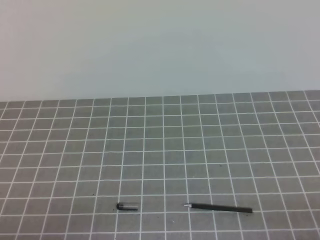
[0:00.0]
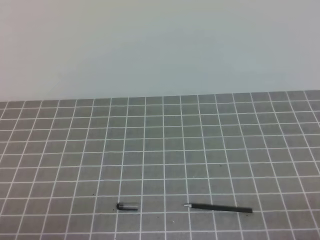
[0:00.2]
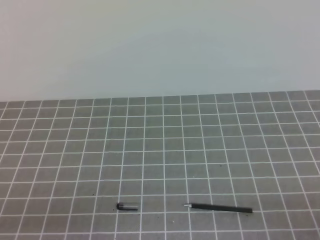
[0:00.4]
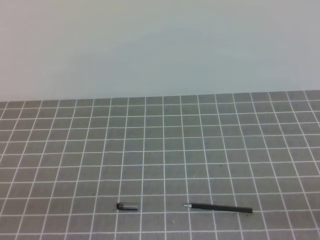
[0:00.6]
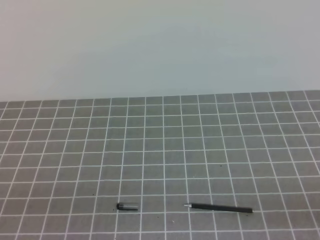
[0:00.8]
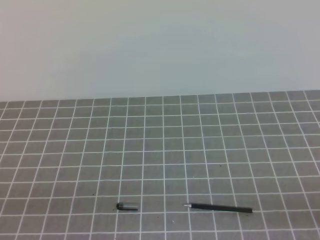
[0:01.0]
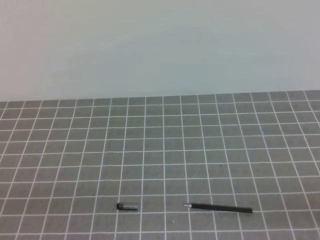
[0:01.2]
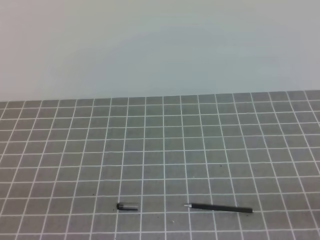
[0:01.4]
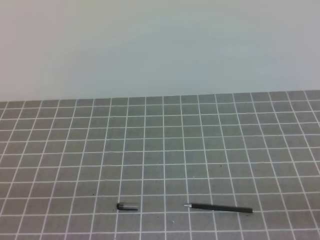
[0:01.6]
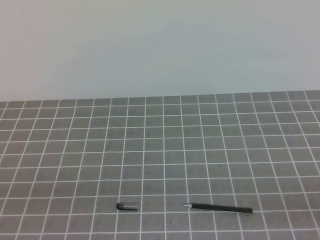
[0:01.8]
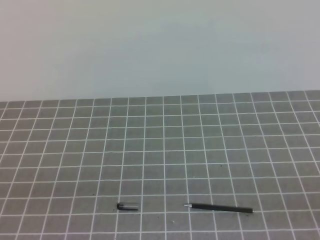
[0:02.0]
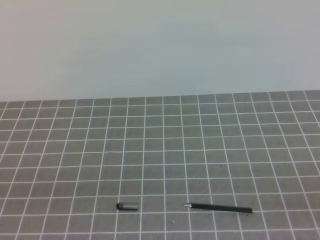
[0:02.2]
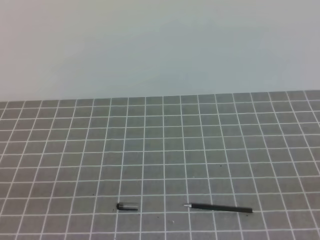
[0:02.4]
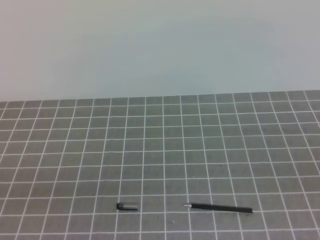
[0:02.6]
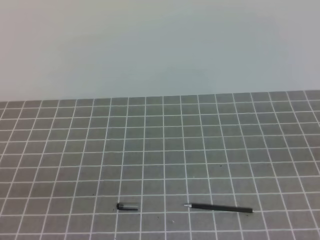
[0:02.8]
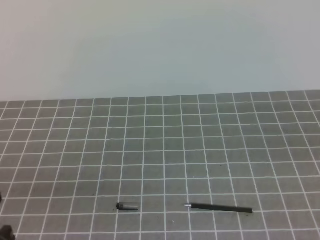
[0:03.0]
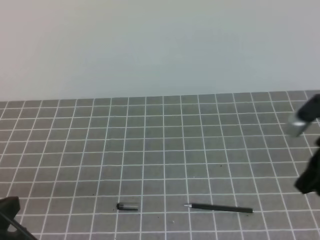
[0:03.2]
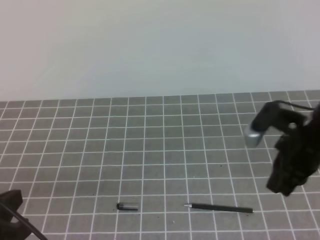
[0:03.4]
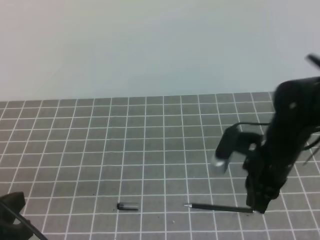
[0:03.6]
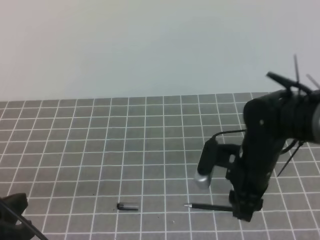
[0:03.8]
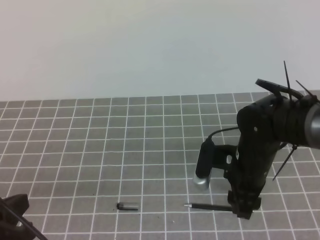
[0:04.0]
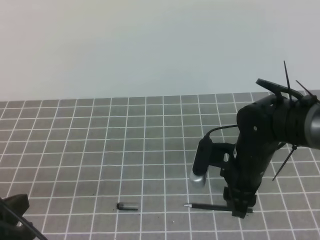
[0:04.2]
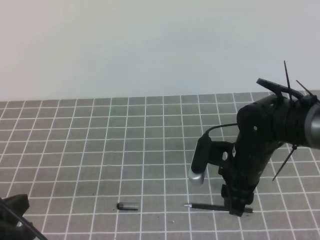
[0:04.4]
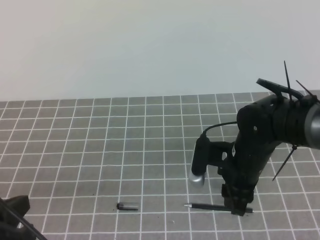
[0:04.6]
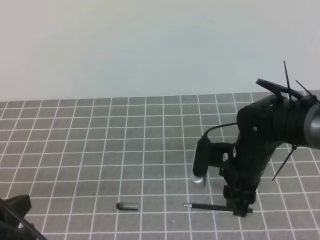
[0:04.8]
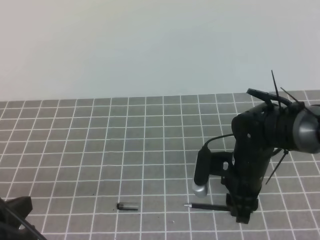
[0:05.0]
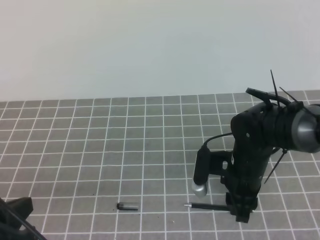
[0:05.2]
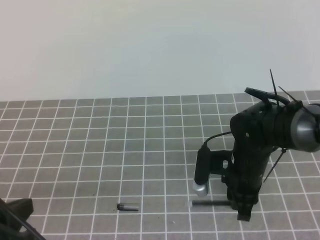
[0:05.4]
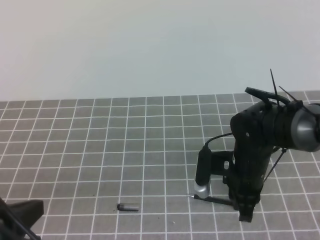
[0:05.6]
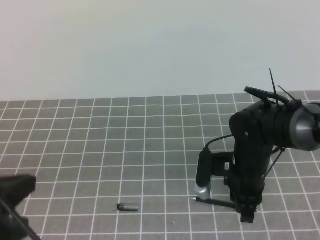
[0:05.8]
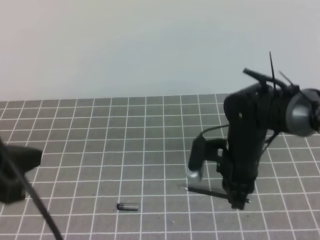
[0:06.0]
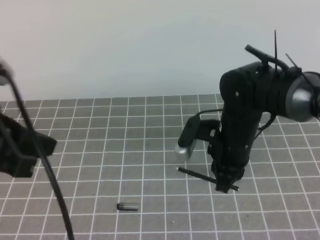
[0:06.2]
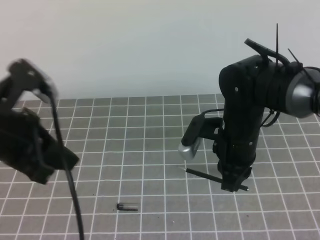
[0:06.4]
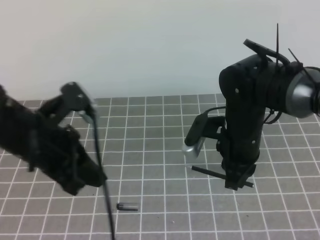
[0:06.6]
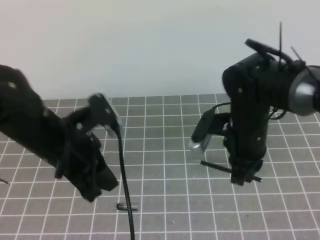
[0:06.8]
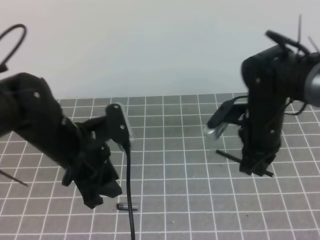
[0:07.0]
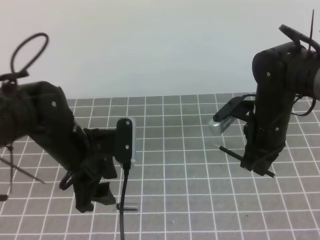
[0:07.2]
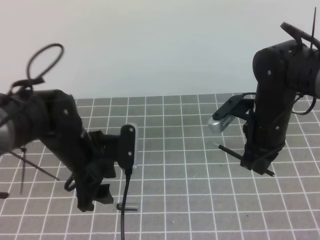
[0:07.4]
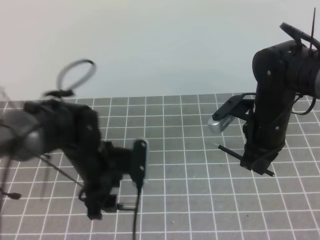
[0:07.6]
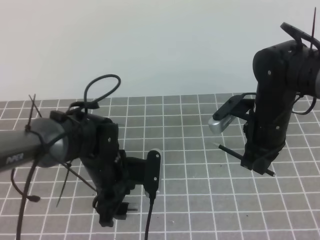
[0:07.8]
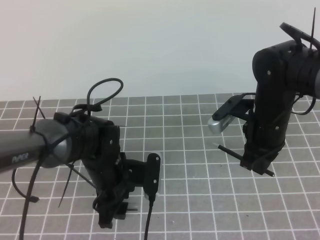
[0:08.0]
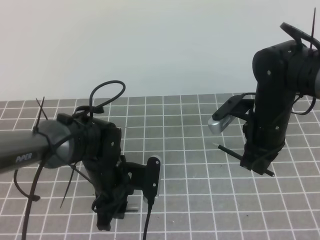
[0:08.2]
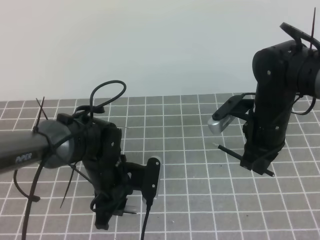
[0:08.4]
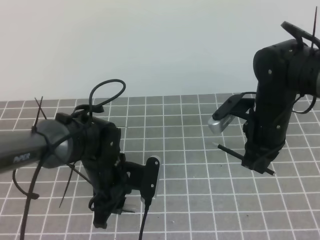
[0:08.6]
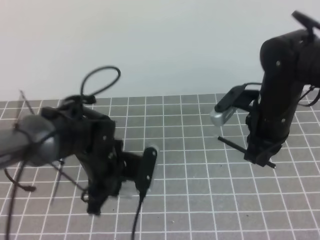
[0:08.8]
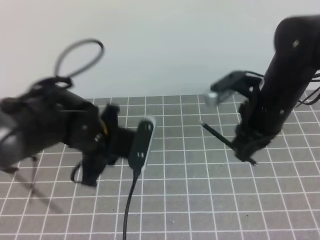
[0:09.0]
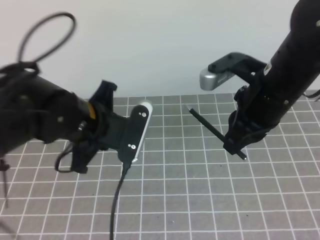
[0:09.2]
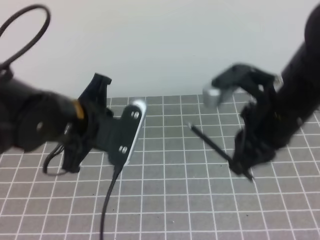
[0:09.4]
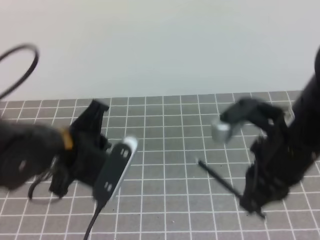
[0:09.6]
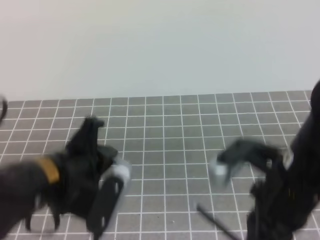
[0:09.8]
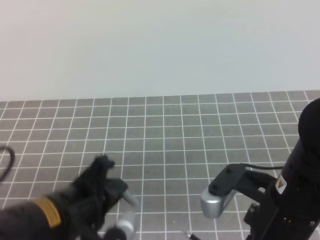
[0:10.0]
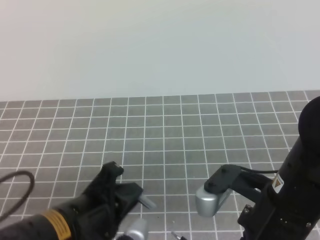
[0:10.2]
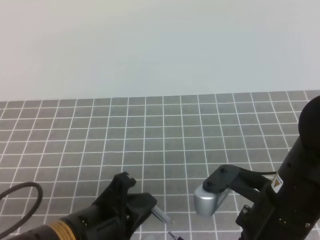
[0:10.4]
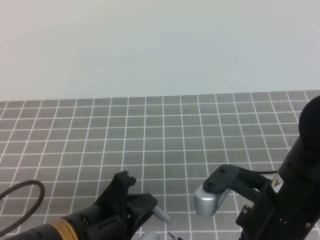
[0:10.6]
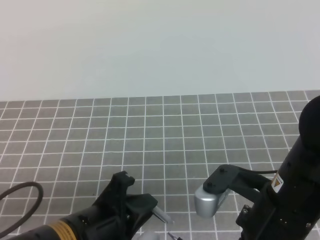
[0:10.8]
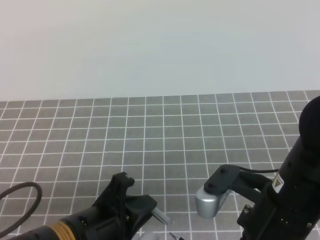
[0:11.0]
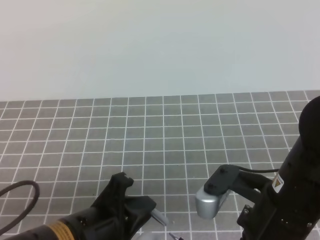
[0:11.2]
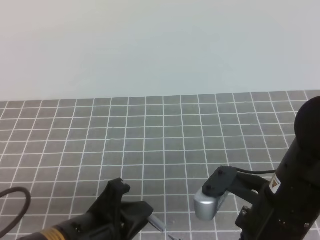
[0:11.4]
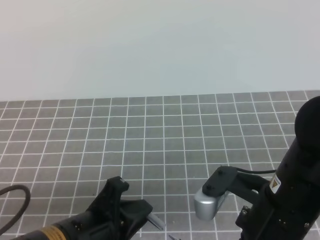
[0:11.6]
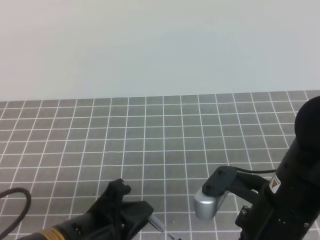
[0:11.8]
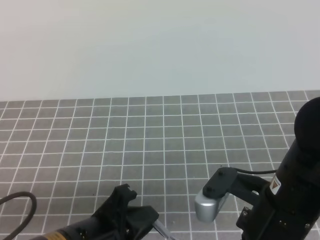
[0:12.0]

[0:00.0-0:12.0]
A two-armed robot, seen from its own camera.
Task of the whole recording: on the grey tablecloth, hold the pen cap in one hand and the pen in the other, then cover the pen cap.
0:03.0 to 0:04.4: The right gripper travels to the left, downward and forward by roughly 25 cm, and opens up.
0:04.4 to 0:06.0: The left gripper is displaced upward by roughly 10 cm; the right gripper closes up.
0:06.0 to 0:07.6: The right gripper shifts by some 10 cm. The left gripper moves downward, forward and to the right, about 25 cm, and opens.
0:07.6 to 0:09.0: The left gripper closes, while the right gripper travels upward by approximately 5 cm.
0:09.0 to 0:10.4: The grippers both shift backward by some 15 cm.
0:10.4 to 0:12.0: The grippers stay close to where they were, moving slightly.

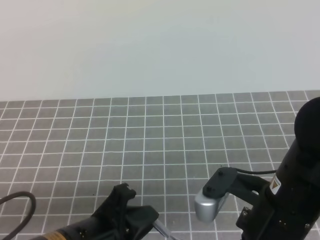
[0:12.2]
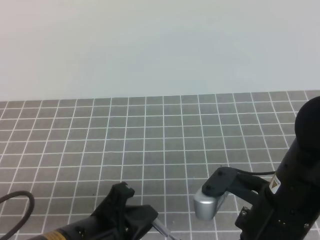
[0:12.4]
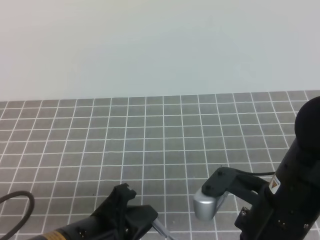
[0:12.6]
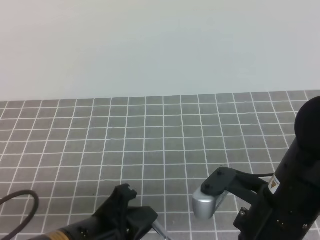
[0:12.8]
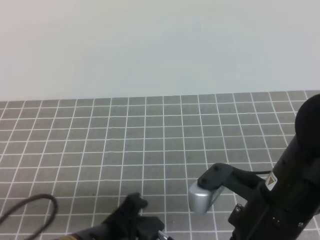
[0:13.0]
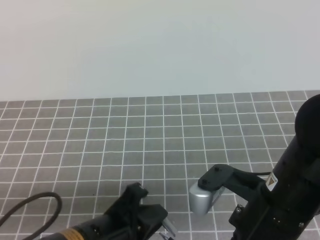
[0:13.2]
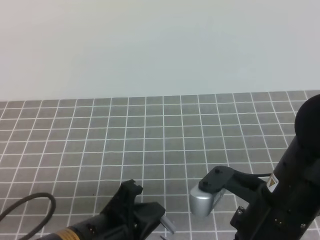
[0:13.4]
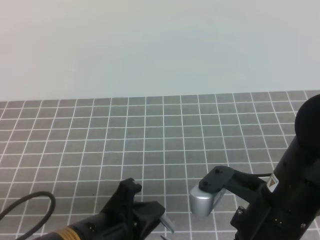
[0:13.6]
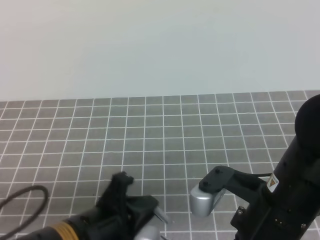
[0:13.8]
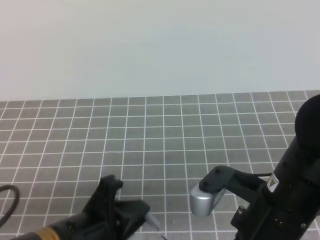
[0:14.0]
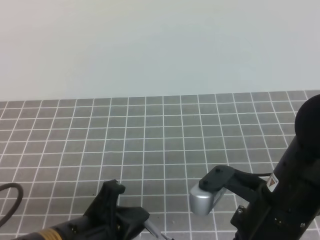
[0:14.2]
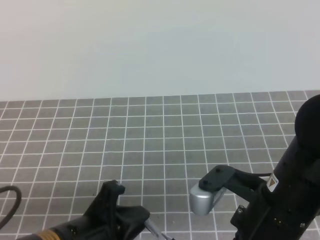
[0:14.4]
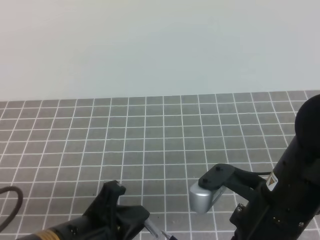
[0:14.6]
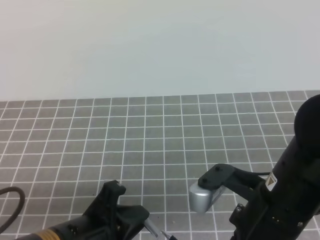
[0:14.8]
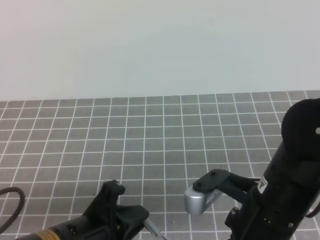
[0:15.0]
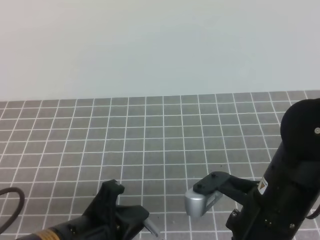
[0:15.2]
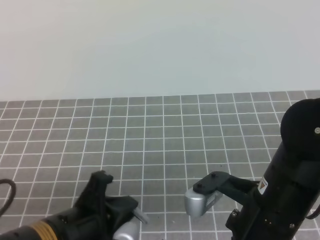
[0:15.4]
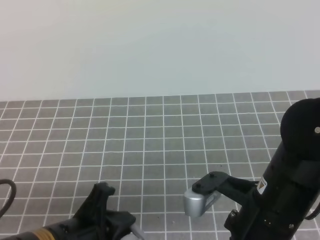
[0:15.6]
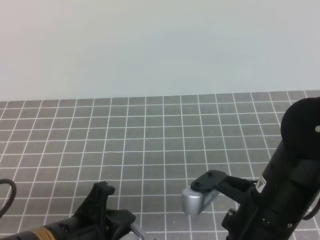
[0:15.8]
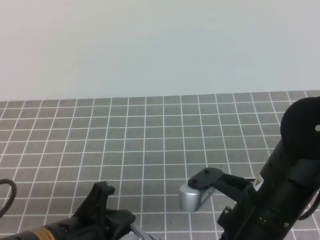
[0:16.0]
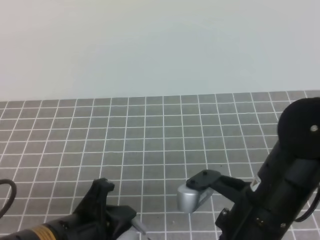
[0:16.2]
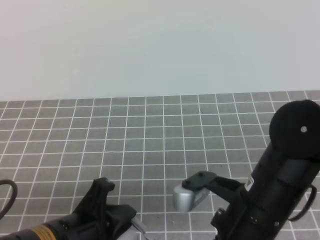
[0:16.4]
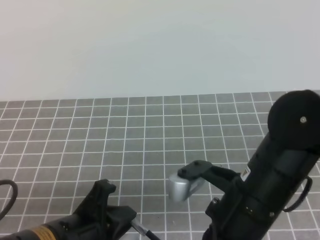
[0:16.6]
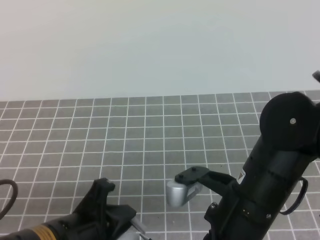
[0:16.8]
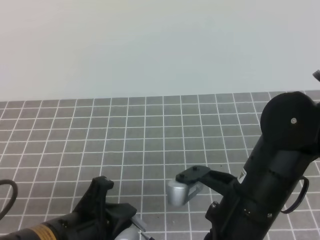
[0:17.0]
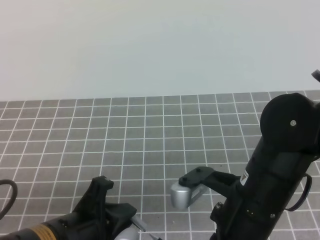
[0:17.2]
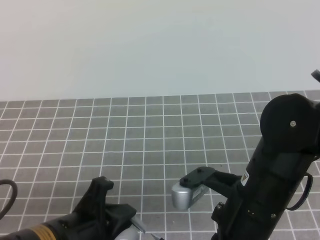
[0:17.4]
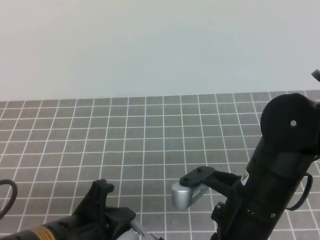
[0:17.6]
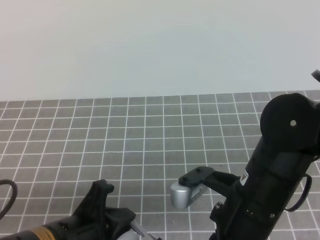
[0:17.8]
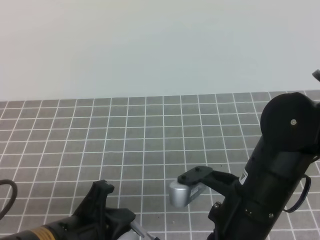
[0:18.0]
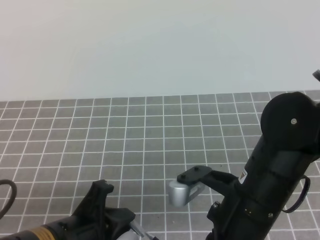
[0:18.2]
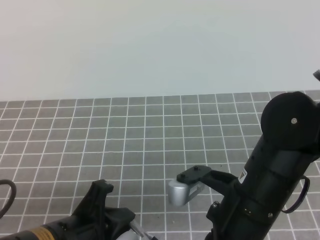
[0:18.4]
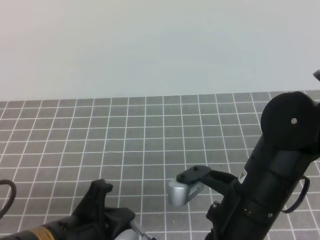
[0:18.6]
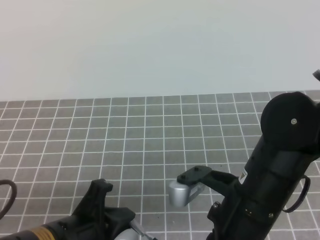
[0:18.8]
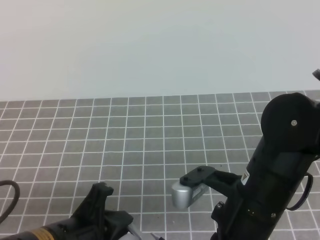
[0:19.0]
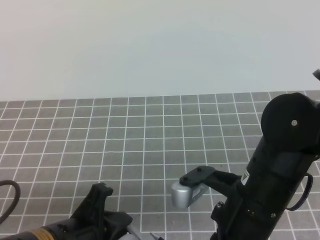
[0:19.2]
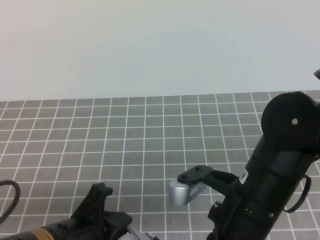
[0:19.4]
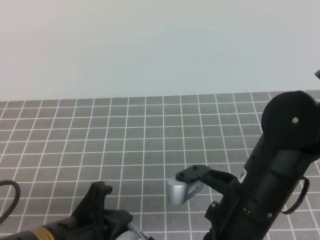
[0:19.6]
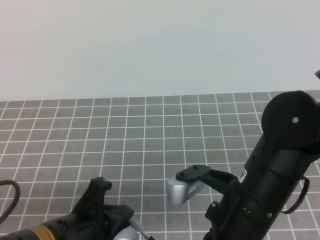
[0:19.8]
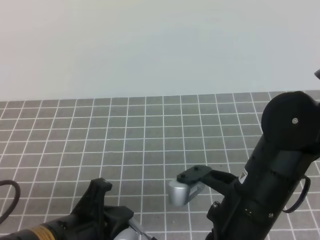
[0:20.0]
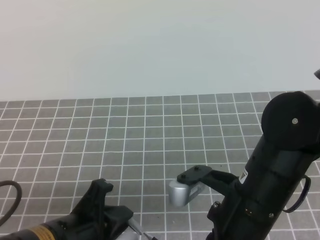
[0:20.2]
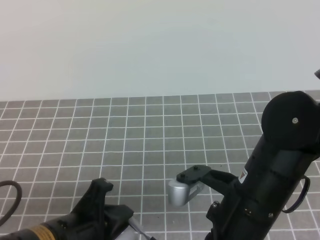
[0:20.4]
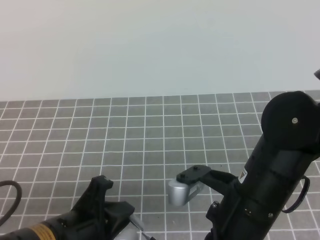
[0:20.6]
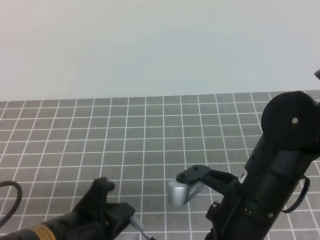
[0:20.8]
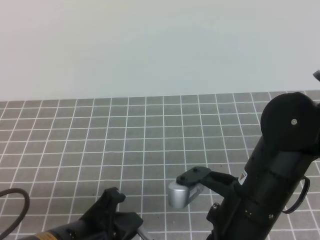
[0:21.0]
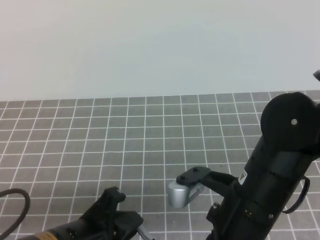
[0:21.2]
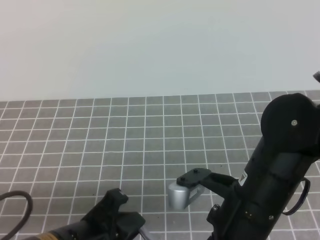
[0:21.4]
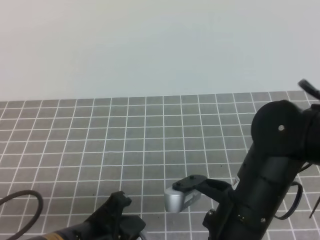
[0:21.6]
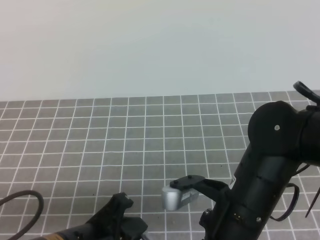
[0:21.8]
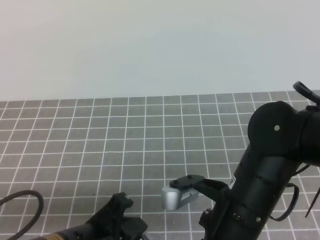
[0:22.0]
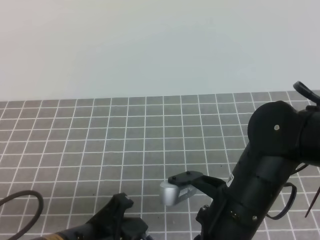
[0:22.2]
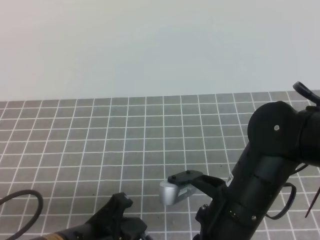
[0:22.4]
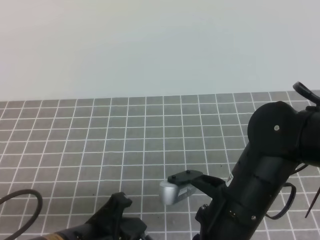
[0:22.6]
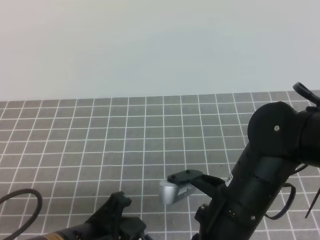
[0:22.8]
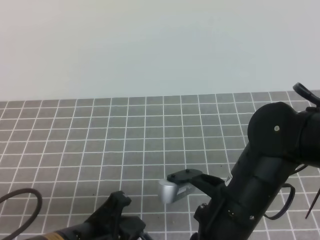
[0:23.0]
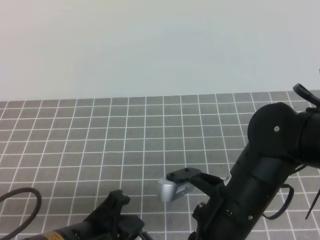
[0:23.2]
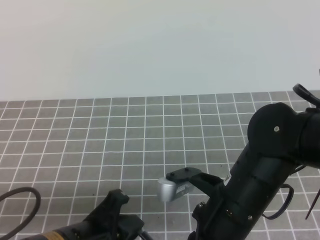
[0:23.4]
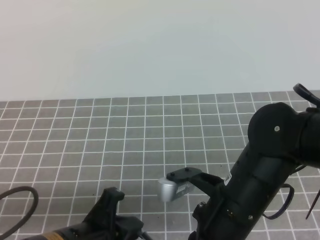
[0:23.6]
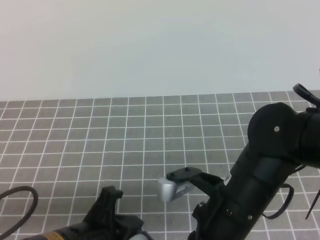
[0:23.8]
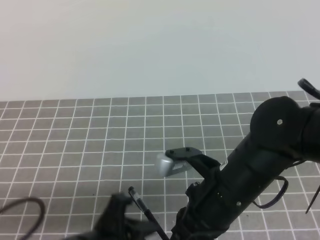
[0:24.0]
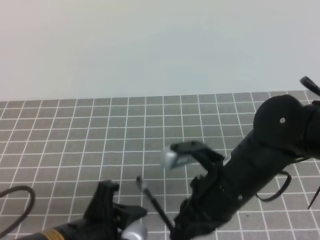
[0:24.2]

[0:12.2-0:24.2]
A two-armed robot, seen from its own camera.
Task of the whole recording: on the grey tablecloth, hold the pen cap in one hand and the pen in the other, then cover the pen cap.
0:12.2 to 0:18.2: The grippers stay close to where they were, moving slightly.
0:18.2 to 0:19.8: Neither gripper changes place.
0:19.8 to 0:22.6: The grippers move only a little.
0:22.6 to 0:24.2: The left gripper opens up.
